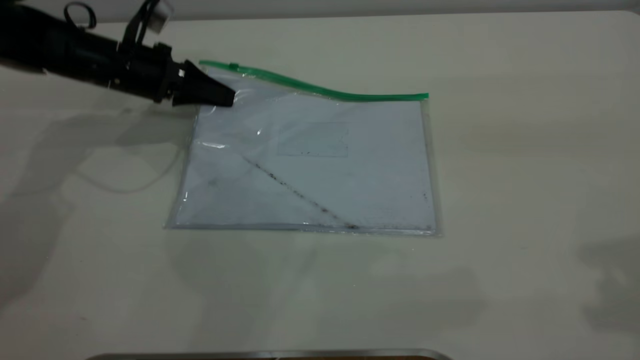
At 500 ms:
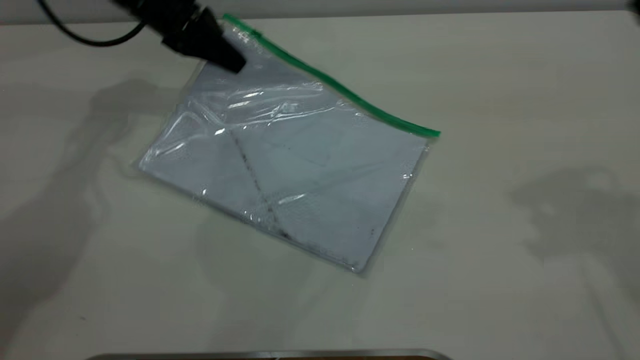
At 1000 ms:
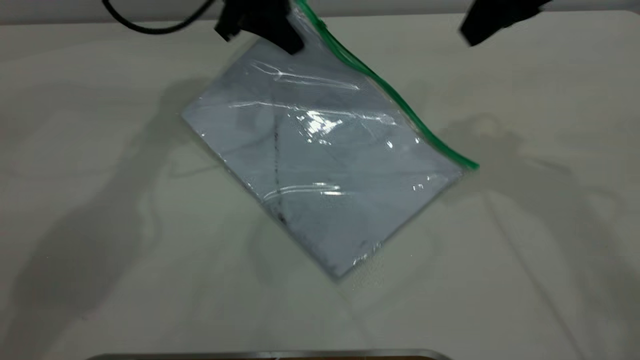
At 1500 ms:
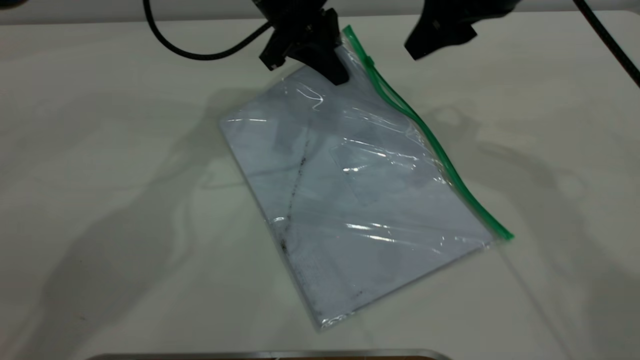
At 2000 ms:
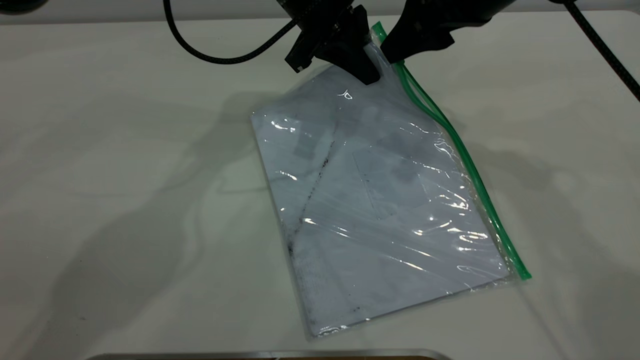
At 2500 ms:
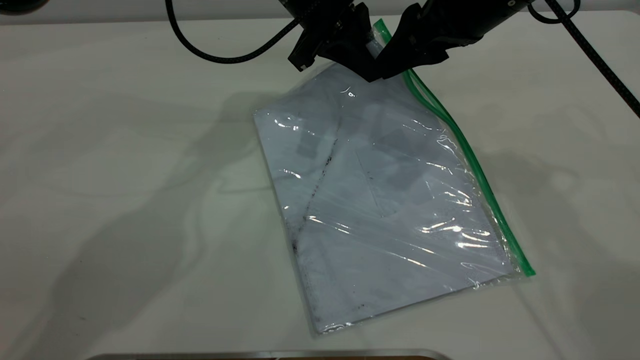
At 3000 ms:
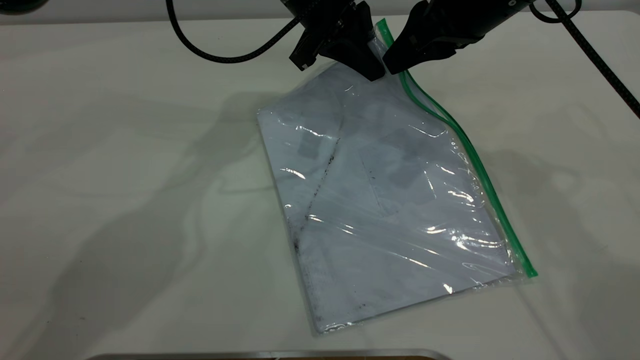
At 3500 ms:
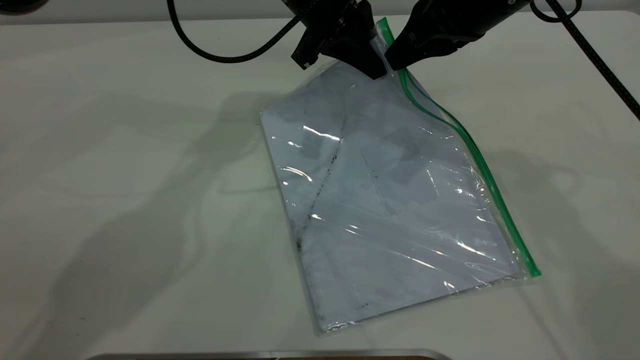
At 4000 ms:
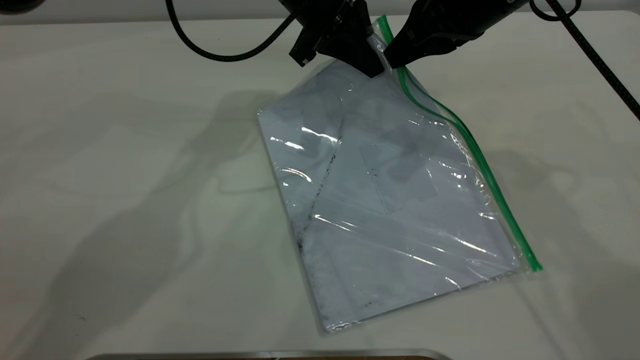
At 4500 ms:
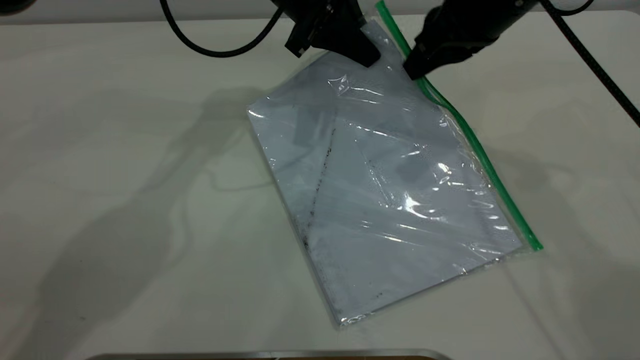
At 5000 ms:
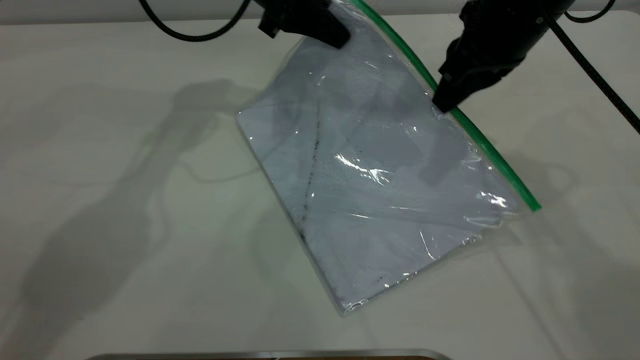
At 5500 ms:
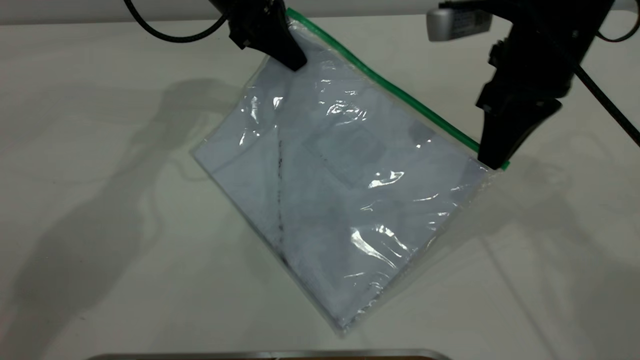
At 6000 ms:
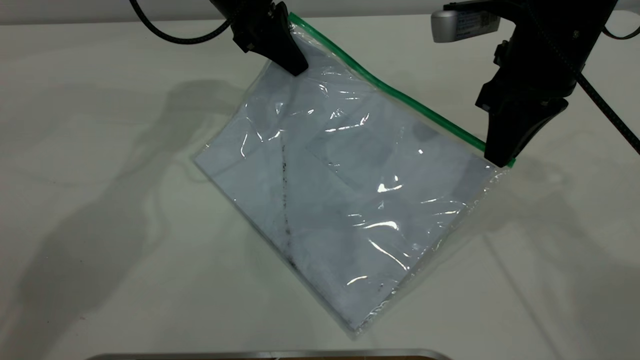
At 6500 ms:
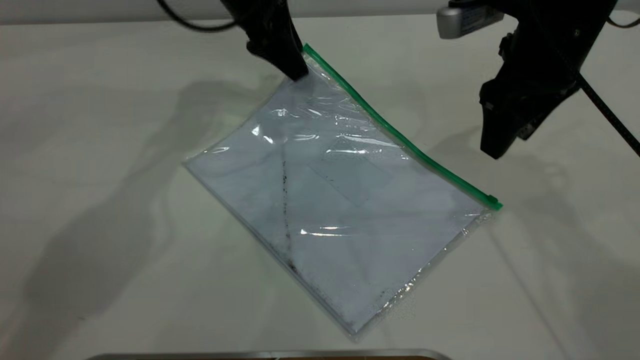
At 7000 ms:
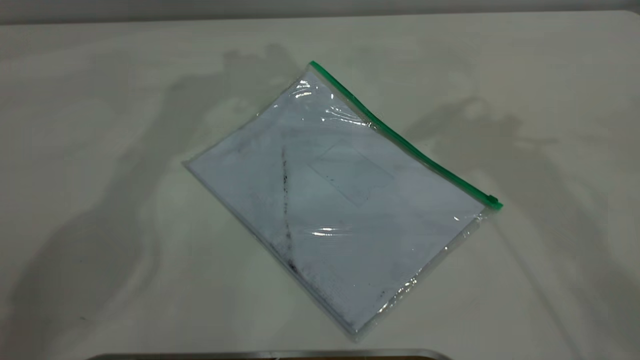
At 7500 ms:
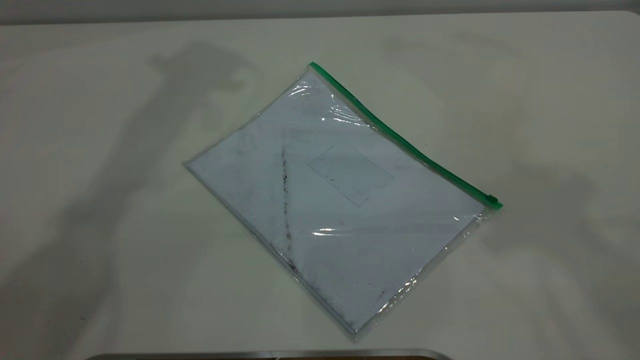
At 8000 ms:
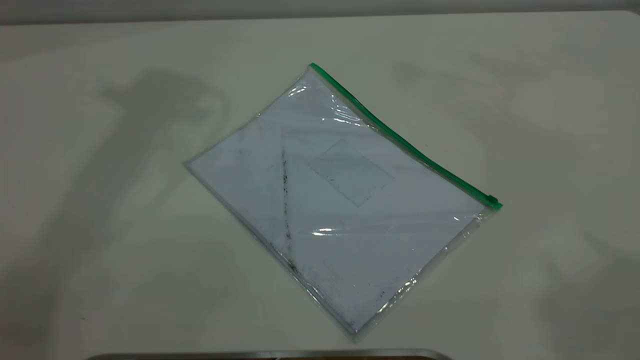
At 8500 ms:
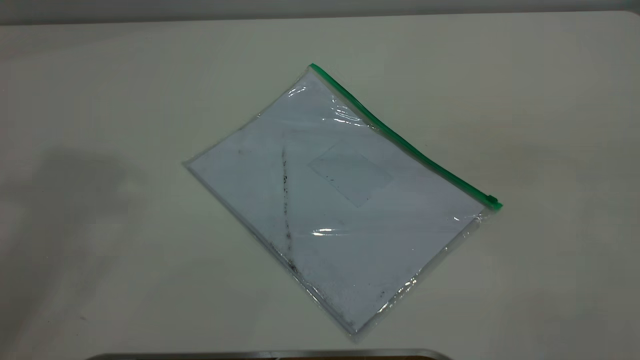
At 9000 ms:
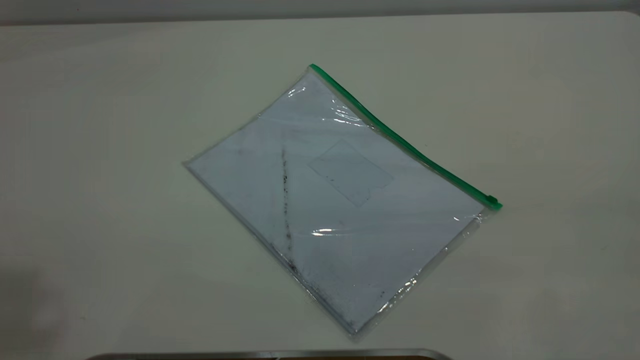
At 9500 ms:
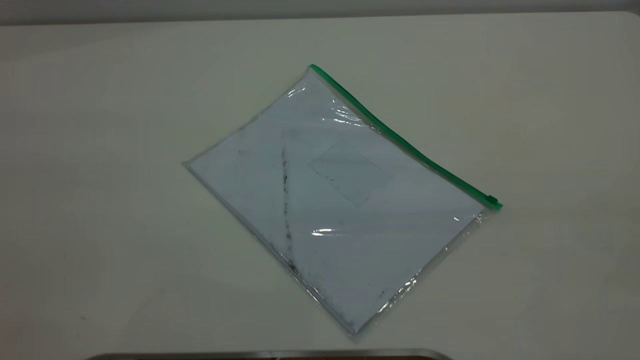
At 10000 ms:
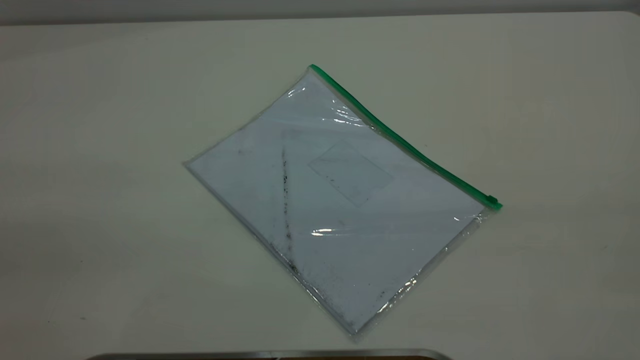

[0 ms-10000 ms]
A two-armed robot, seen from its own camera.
Step, 500 ms to 6000 ms: Pulling up the zipper on the transparent plastic bag with the right gripper to close it.
0 ms to 2000 ms: The right gripper moves forward, downward and to the left, about 30 cm. Meanwhile the left gripper goes about 25 cm to the right and upward.
2000 ms to 4000 ms: The right gripper closes its fingers.
4000 ms to 6000 ms: The left gripper travels to the left by some 5 cm; the right gripper changes place by approximately 5 cm.
6000 ms to 8000 ms: The right gripper shifts approximately 40 cm upward and backward, and opens. The left gripper goes some 40 cm upward, and opens.
